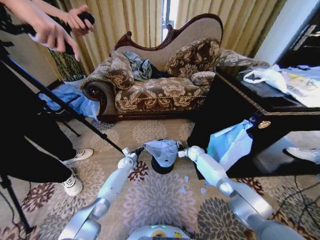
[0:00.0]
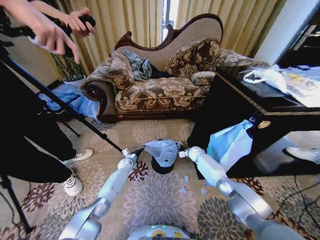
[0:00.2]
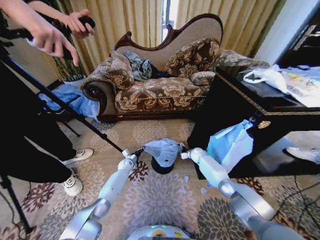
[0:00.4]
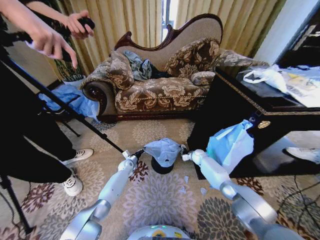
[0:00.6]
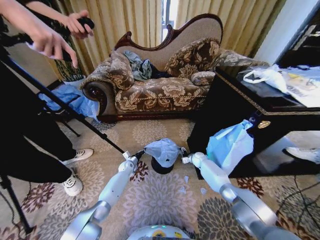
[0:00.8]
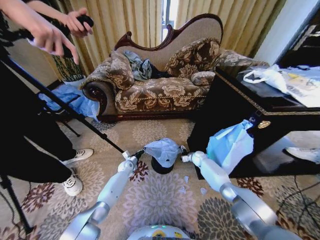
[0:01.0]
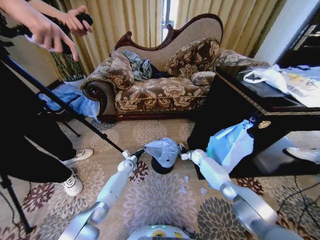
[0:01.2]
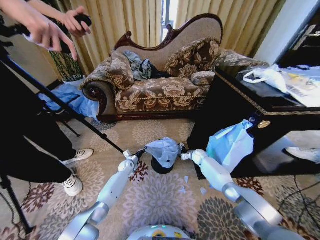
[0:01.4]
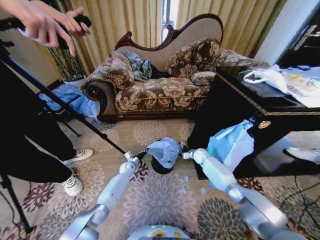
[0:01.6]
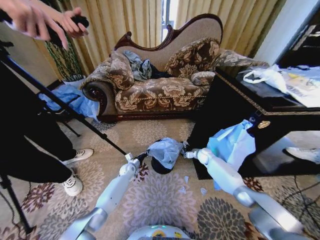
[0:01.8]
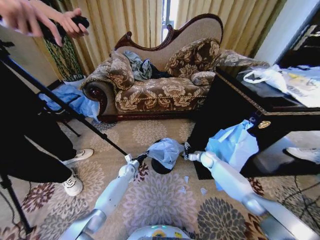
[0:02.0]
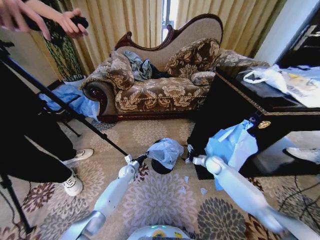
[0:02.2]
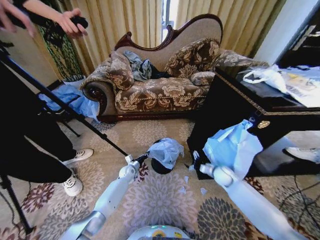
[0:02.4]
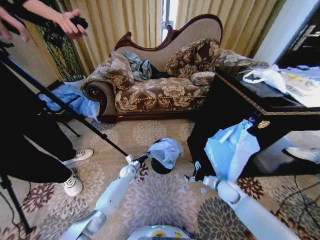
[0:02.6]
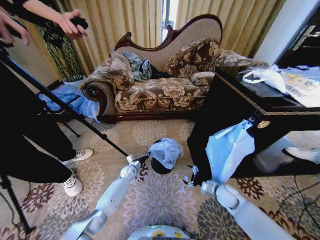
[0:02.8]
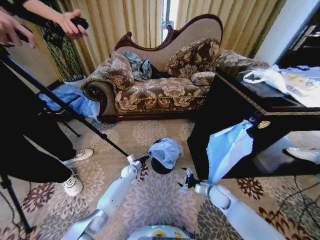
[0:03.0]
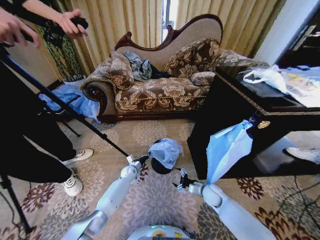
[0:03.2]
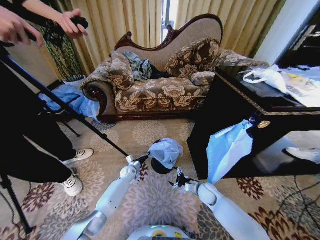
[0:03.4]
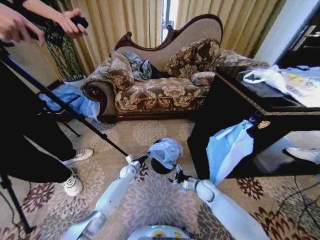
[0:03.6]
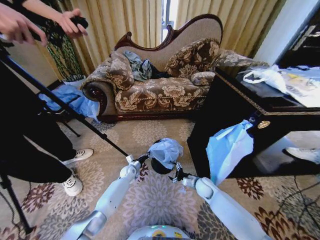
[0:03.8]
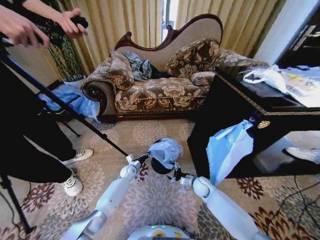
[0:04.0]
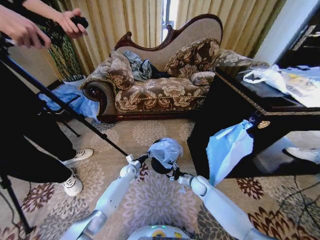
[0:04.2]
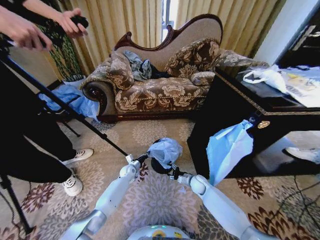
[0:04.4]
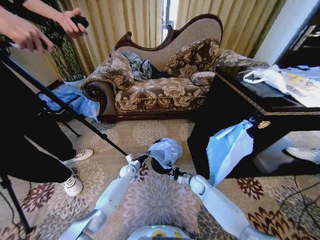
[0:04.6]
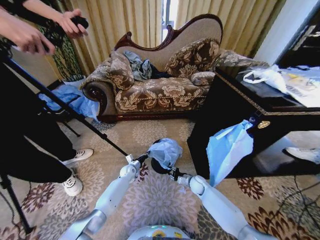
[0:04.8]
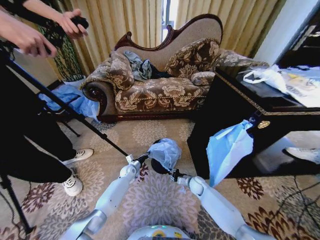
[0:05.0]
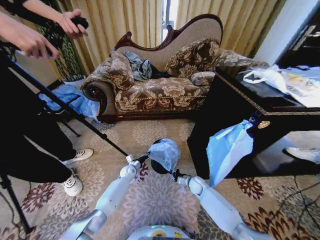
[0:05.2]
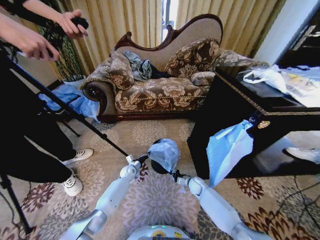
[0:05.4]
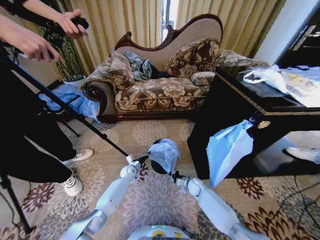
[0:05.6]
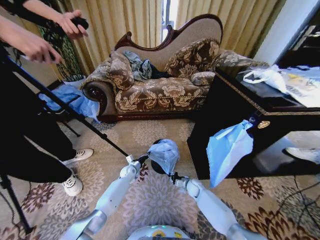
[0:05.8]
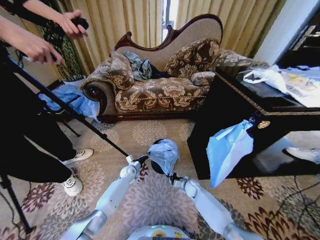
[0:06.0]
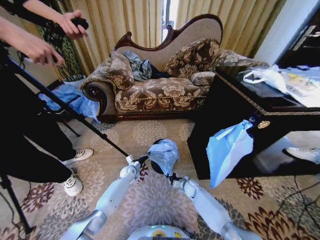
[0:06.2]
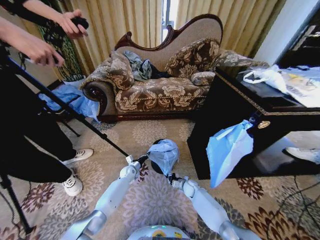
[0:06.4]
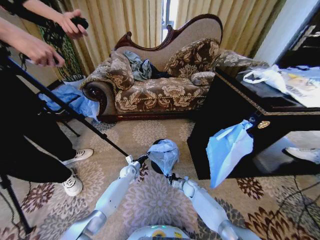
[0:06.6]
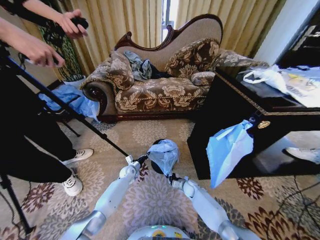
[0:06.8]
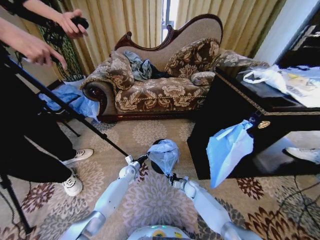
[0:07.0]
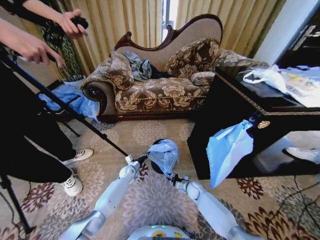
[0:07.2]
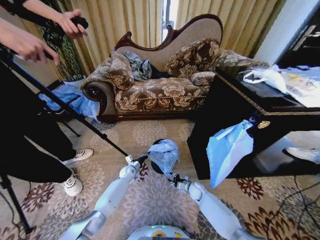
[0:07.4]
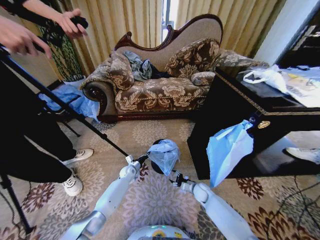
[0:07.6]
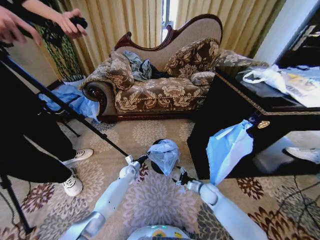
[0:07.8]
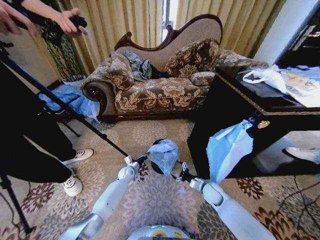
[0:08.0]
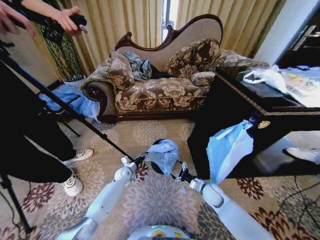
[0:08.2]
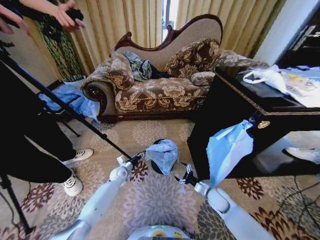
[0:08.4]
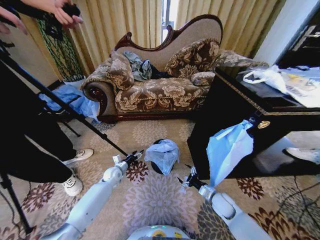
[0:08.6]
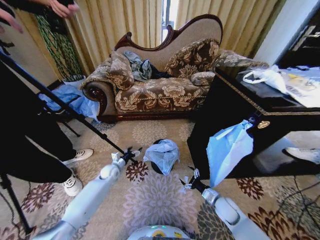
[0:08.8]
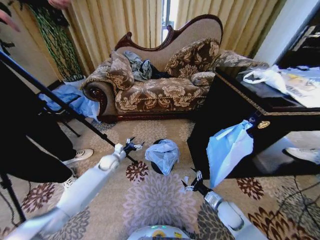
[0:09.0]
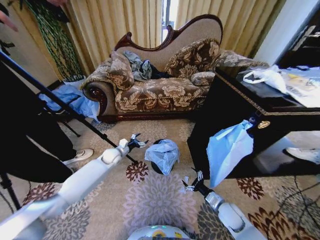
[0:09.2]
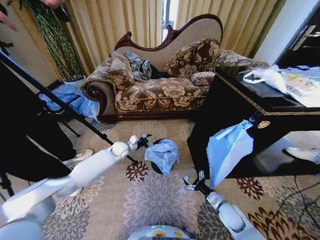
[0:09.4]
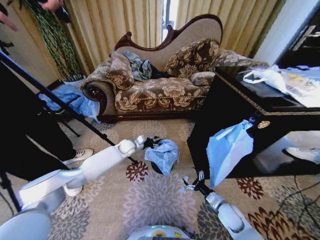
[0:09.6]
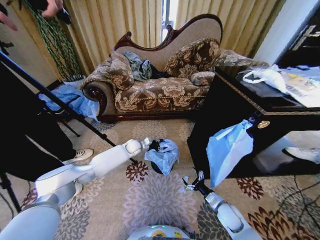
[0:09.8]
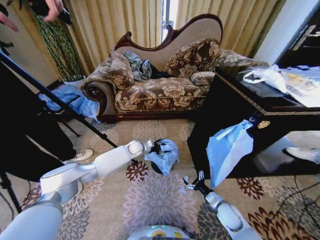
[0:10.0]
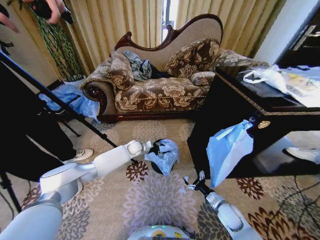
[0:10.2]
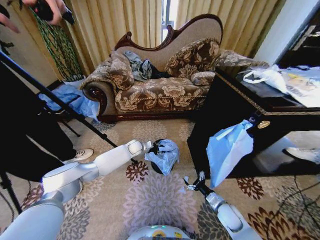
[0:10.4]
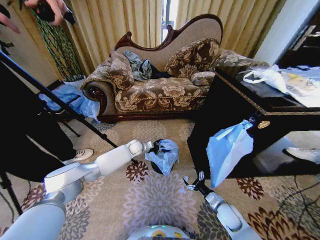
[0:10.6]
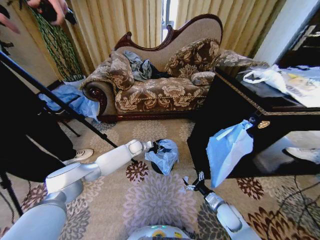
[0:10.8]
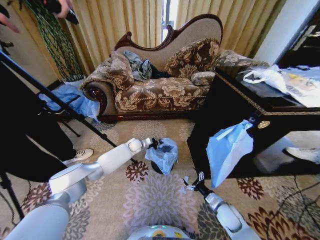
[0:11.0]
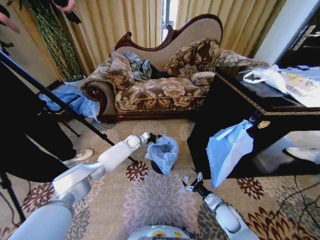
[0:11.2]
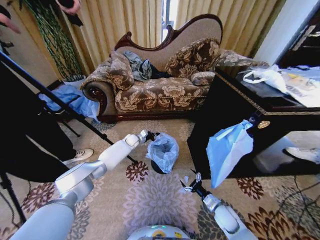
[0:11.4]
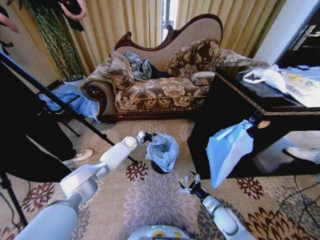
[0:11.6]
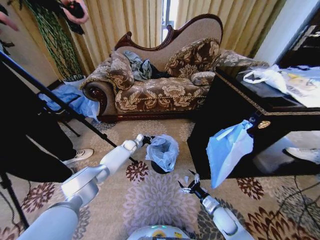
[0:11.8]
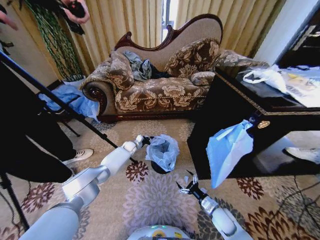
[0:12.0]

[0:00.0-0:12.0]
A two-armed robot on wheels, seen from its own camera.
Task of the whole recording: Place a garbage bag over the trash bin.
0:00.0 to 0:01.6: The grippers move only a little.
0:01.6 to 0:03.0: The right gripper is displaced backward by approximately 25 cm.
0:03.0 to 0:04.4: The right gripper goes roughly 10 cm to the left and forward.
0:04.4 to 0:06.0: The right gripper moves downward, about 5 cm, and closes up.
0:06.0 to 0:07.6: The right gripper changes place by roughly 5 cm, and opens up.
0:07.6 to 0:09.0: The right gripper goes about 15 cm backward, upward and to the right; the left gripper is displaced upward and to the left by roughly 15 cm, and opens up.
0:09.0 to 0:10.4: The left gripper heads to the right and forward, covering some 15 cm, and closes up.
0:10.4 to 0:12.0: The left gripper goes roughly 10 cm downward and to the left, and closes up.

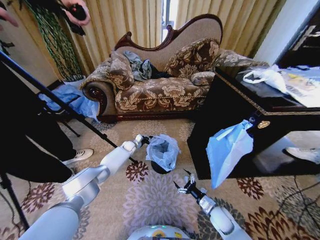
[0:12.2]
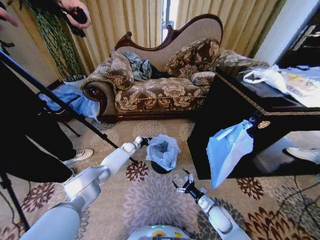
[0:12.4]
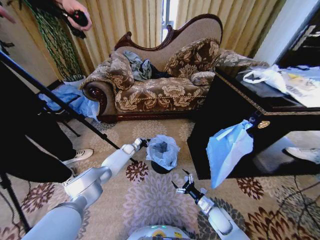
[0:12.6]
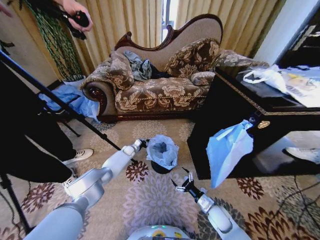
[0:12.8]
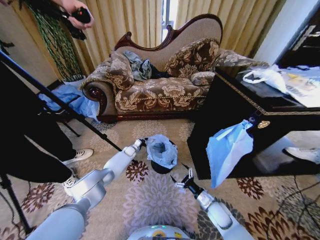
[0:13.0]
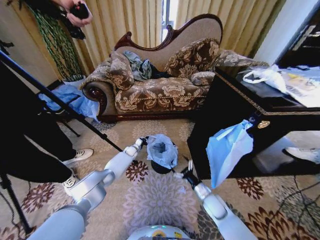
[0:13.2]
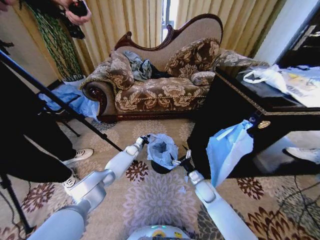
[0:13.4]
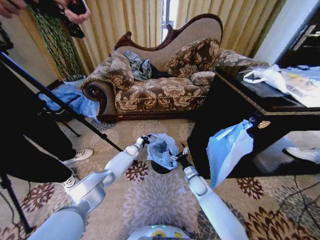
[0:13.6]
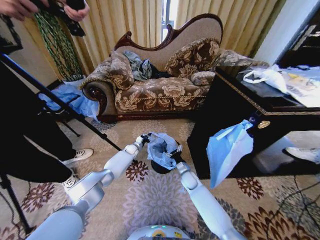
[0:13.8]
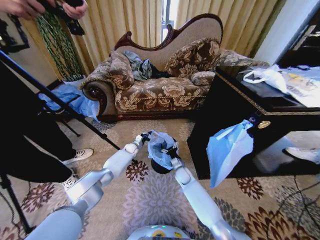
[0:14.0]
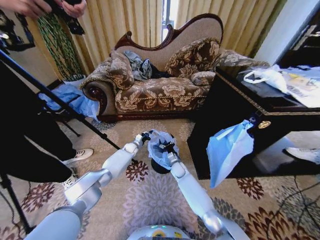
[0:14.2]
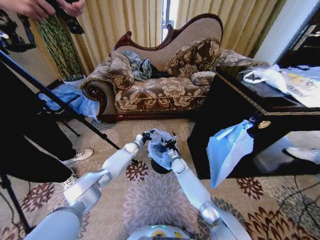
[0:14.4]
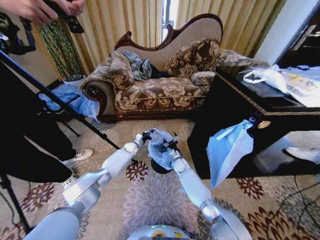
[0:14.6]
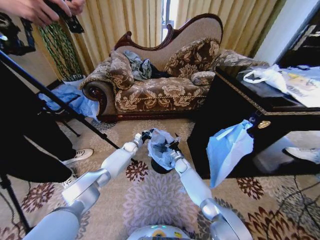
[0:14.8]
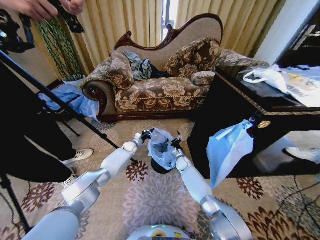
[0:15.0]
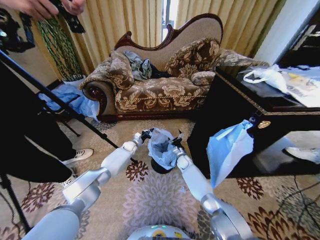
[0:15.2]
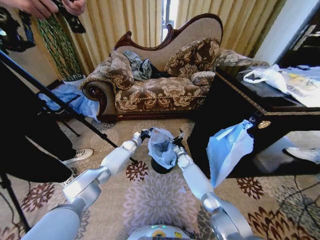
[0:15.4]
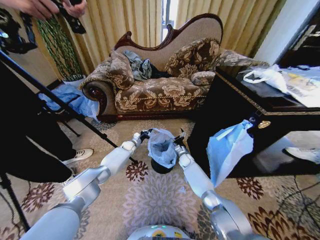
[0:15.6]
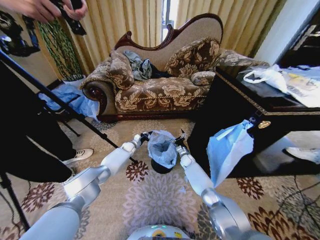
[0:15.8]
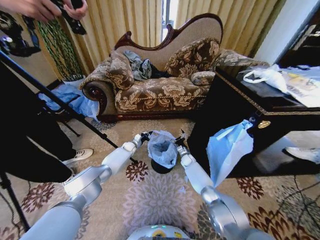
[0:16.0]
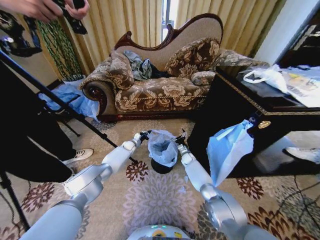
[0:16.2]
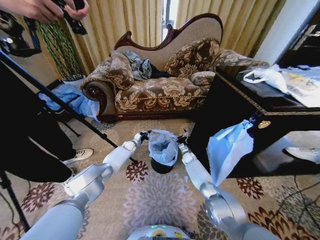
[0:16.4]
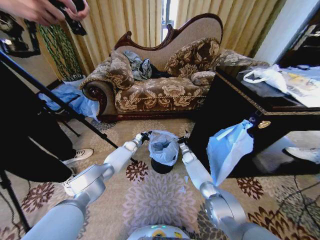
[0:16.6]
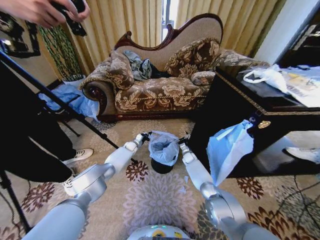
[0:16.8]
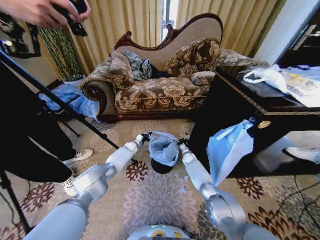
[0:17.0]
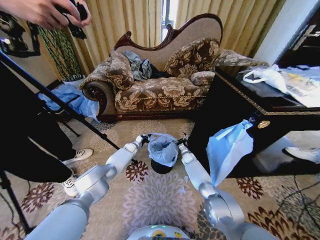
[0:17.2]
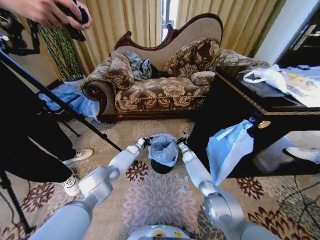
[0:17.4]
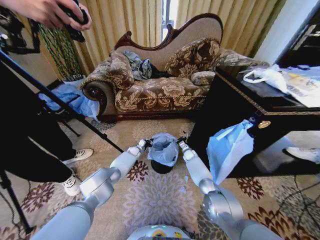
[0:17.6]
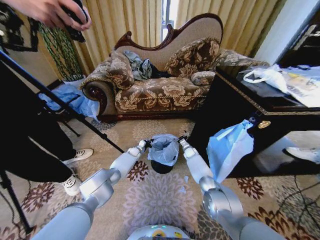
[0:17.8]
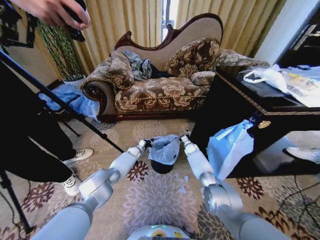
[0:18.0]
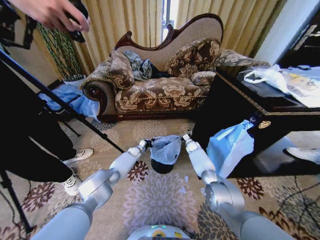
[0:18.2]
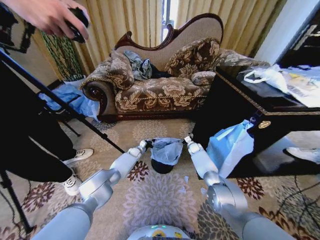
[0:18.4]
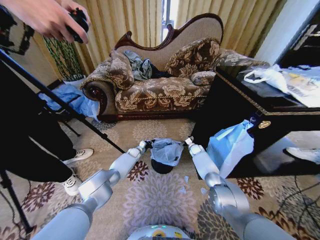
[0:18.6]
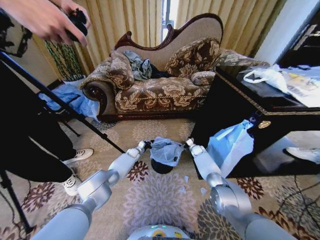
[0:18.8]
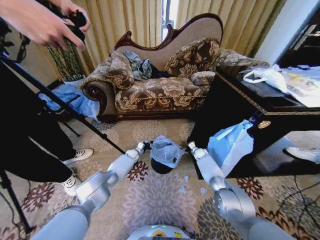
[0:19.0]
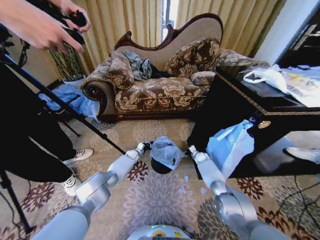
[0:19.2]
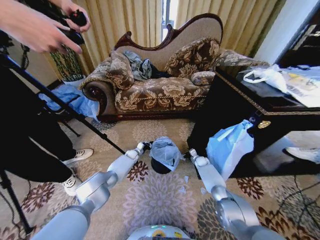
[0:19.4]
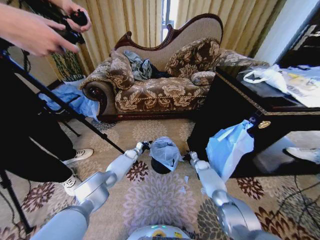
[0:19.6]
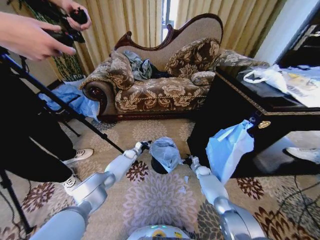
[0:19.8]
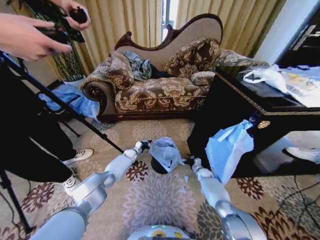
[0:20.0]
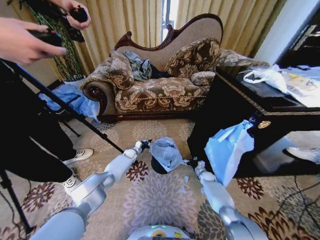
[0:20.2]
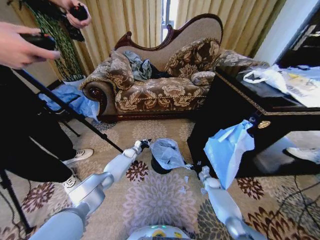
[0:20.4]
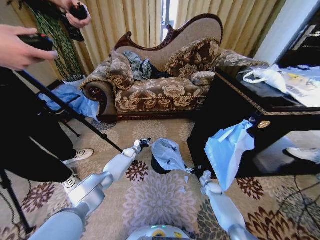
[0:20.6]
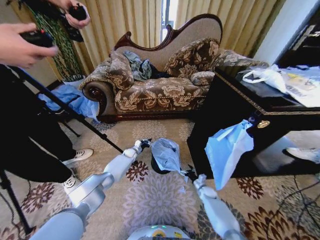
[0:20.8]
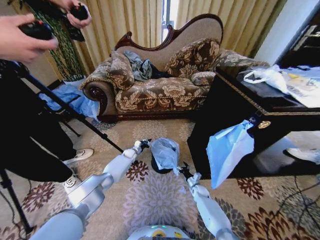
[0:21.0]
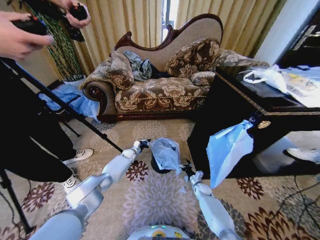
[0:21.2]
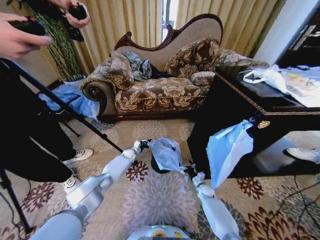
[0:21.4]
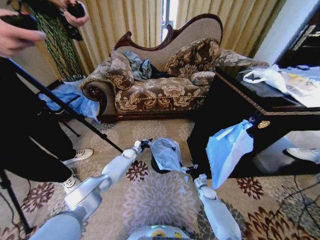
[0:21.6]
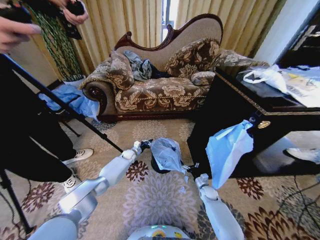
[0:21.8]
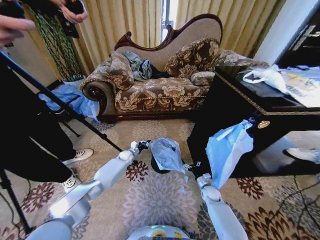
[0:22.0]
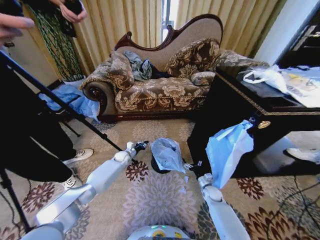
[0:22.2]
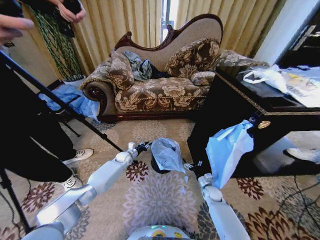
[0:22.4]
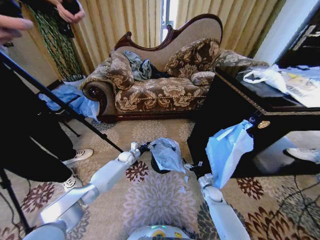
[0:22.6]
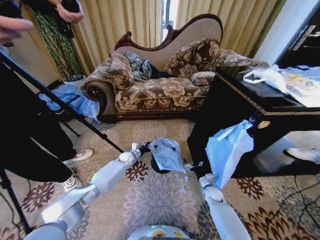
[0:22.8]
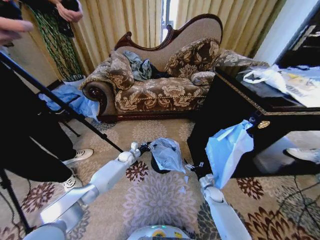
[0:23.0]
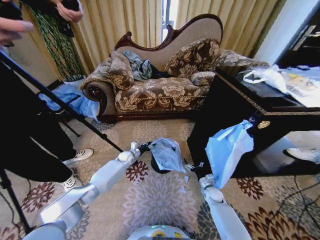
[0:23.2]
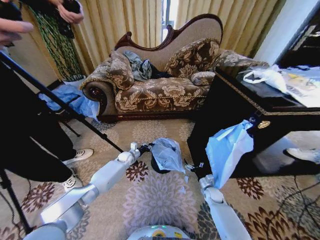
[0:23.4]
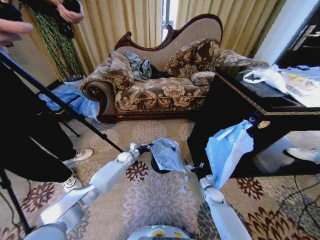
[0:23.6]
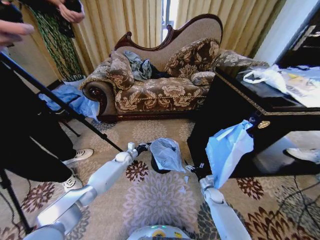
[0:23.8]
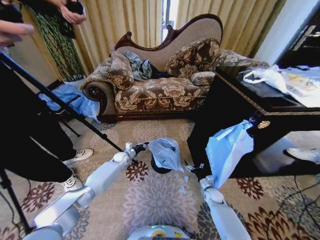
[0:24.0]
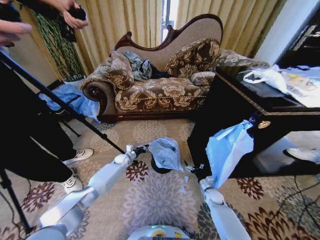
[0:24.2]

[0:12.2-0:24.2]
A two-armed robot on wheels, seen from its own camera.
Task of the whole recording: Place a garbage bag over the trash bin.
0:12.2 to 0:13.8: The right gripper is displaced forward and to the left by about 20 cm.
0:13.8 to 0:15.2: The right gripper shifts approximately 10 cm forward.
0:15.2 to 0:16.6: The right gripper changes place by roughly 5 cm.
0:16.6 to 0:18.2: The right gripper heads upward, covering about 5 cm; the left gripper moves some 5 cm.
0:18.2 to 0:19.8: The right gripper travels downward, backward and to the right by about 20 cm.
0:19.8 to 0:21.2: The right gripper is displaced backward by about 10 cm.
0:21.2 to 0:22.6: The left gripper ends up about 5 cm from where it was, and opens up. The right gripper changes place by about 5 cm.
0:22.6 to 0:24.2: The left gripper closes its fingers.
